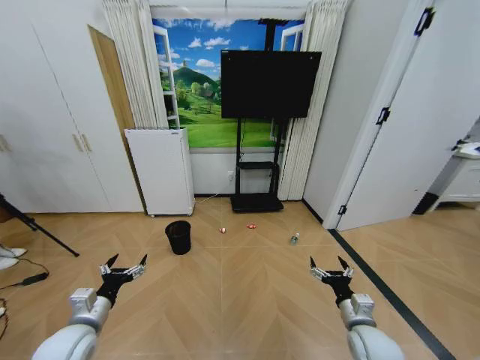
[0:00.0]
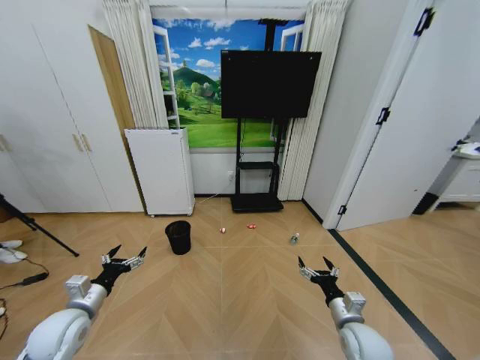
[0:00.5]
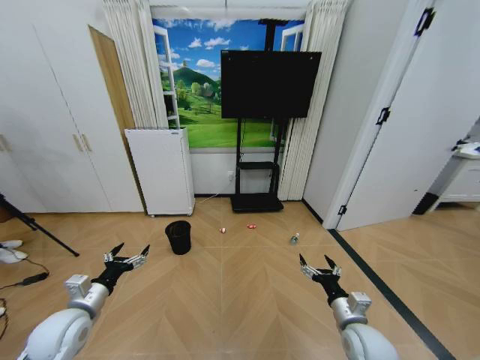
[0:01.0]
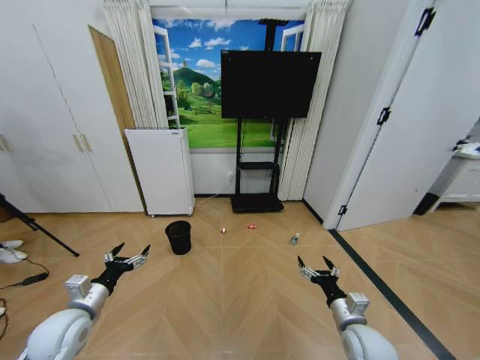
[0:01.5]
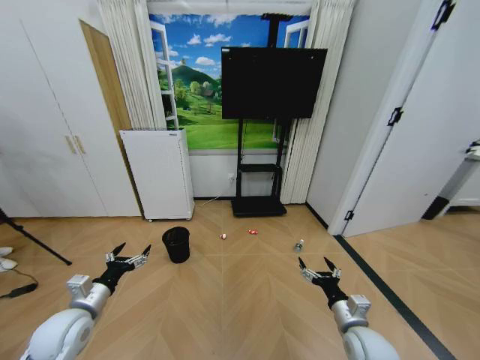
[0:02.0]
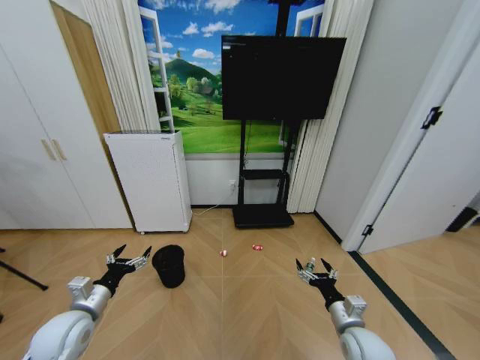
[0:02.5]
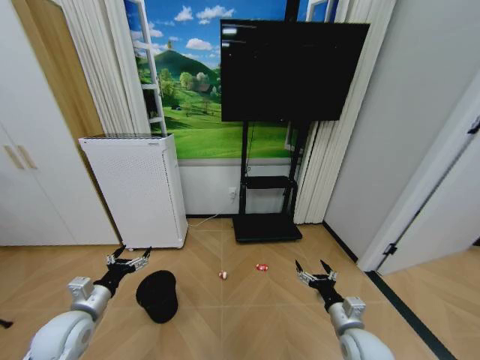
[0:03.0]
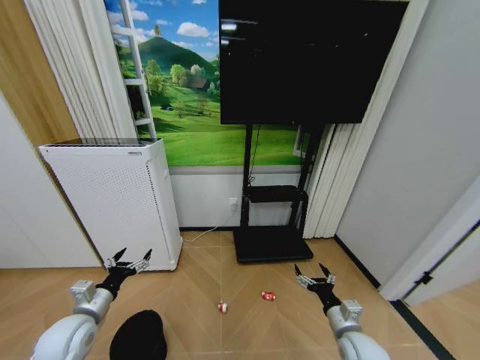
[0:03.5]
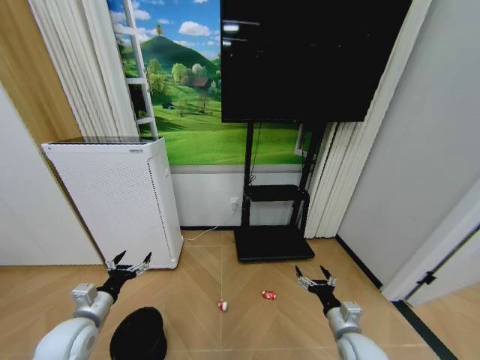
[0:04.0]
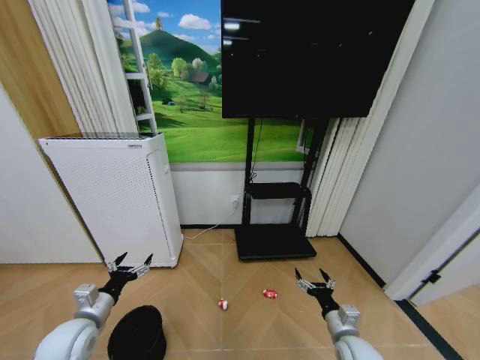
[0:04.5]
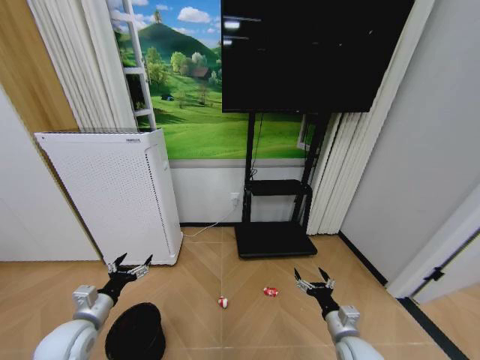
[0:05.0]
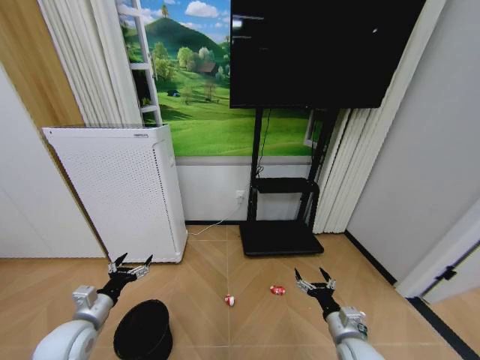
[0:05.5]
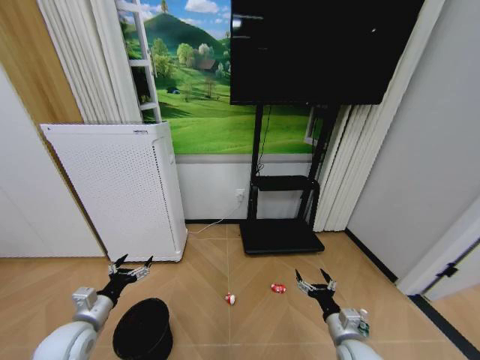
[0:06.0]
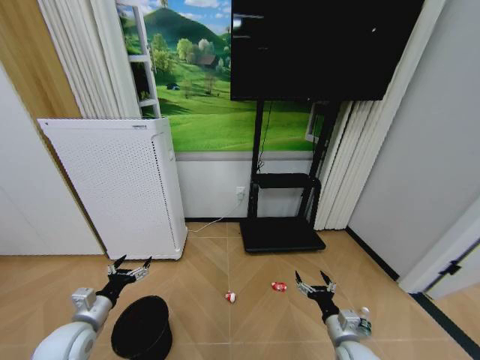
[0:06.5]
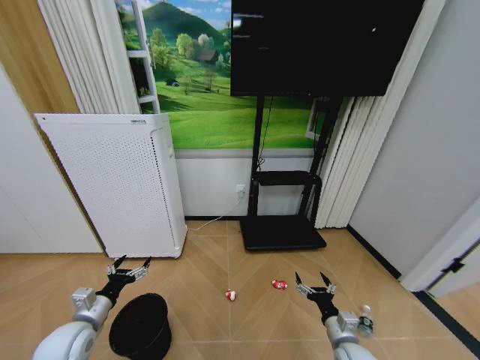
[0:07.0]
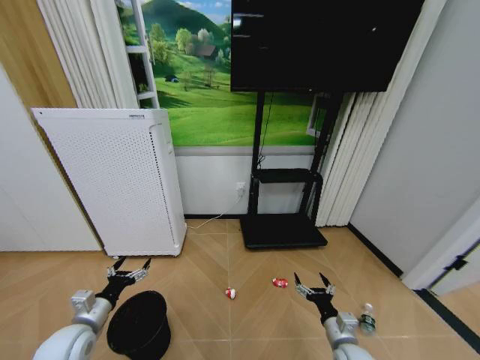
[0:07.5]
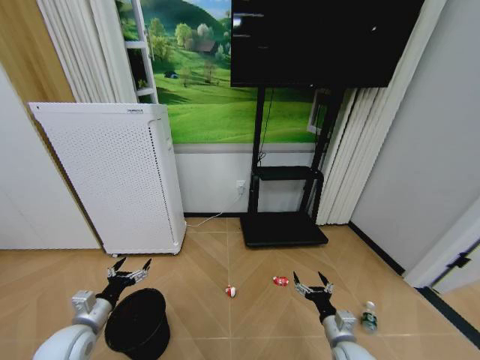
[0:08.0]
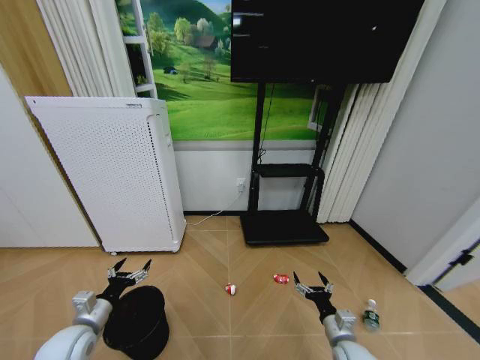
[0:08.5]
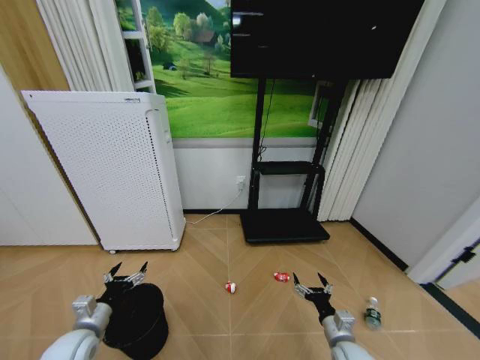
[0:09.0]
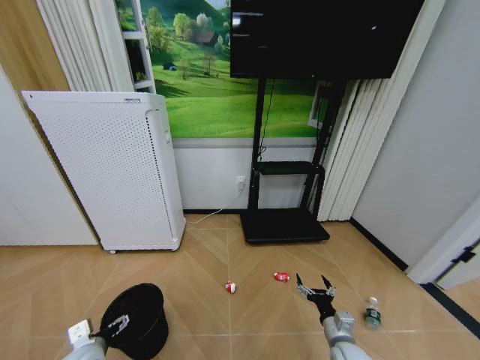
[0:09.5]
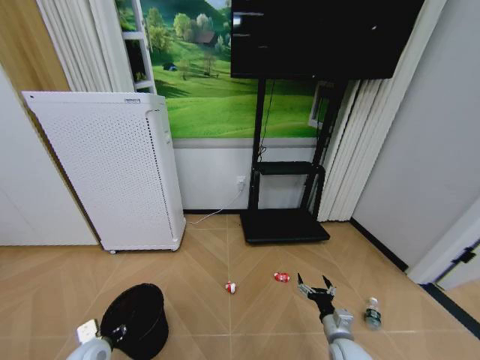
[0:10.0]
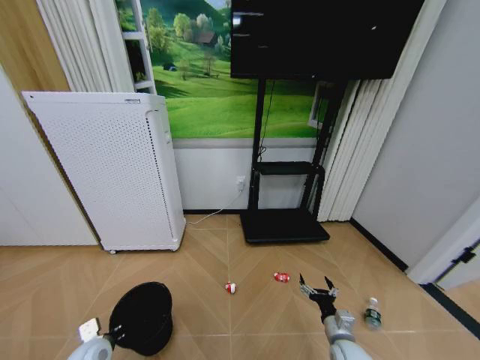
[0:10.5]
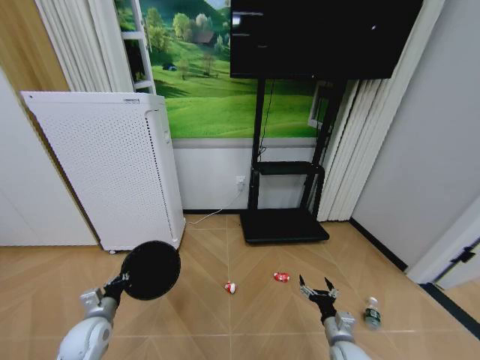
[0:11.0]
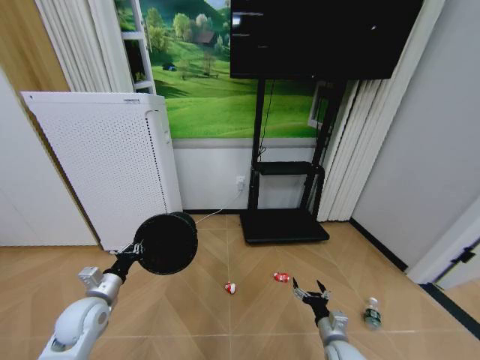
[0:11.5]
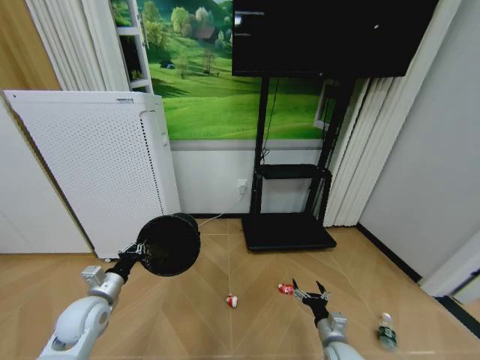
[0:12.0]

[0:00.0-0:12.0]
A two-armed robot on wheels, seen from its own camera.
Task of the whole recording: Pick up the trash bin and place the garbage on the floor into it.
6.0 to 8.0 s: The grippers make only small movements.
8.0 to 10.0 s: The left gripper travels downward by approximately 5 cm, and closes up.
10.0 to 12.0 s: The left gripper goes roughly 10 cm upward and forward, and closes its fingers.

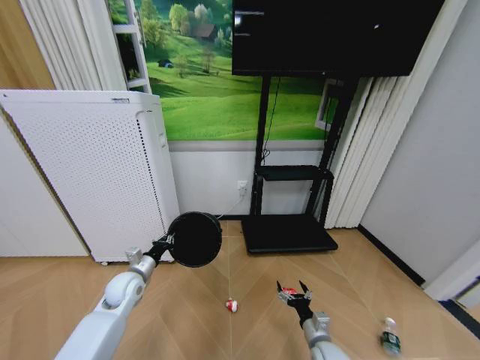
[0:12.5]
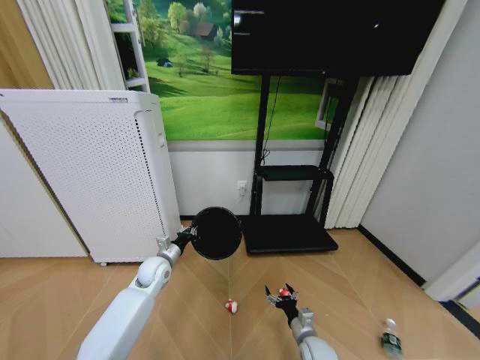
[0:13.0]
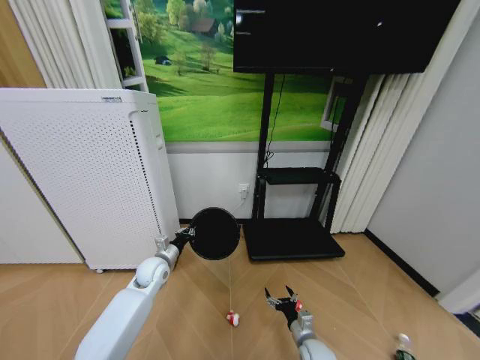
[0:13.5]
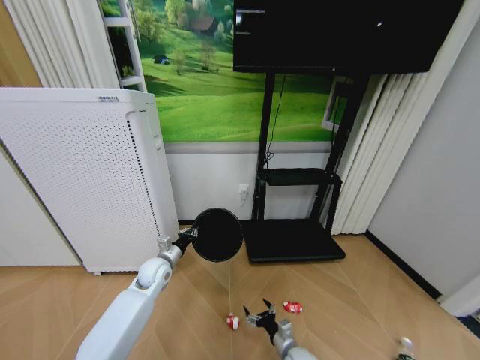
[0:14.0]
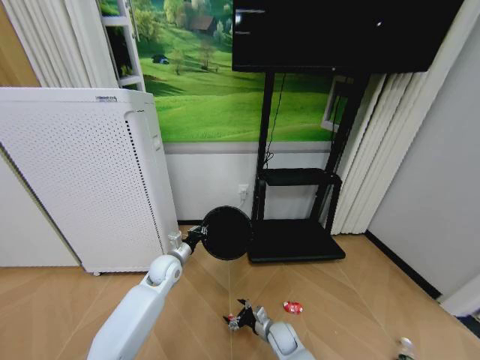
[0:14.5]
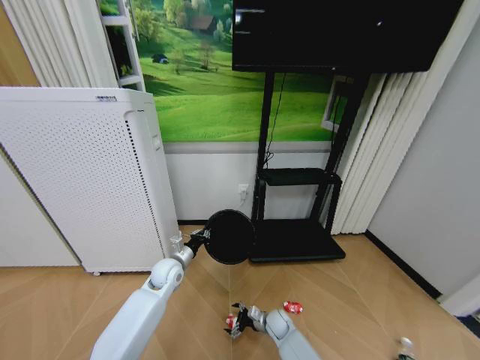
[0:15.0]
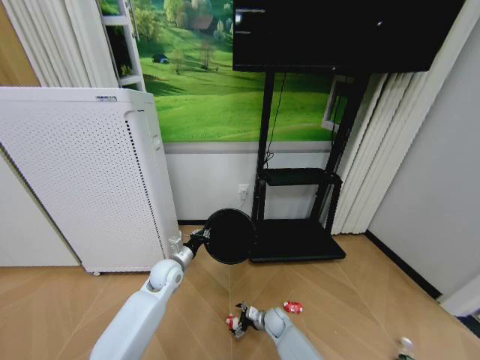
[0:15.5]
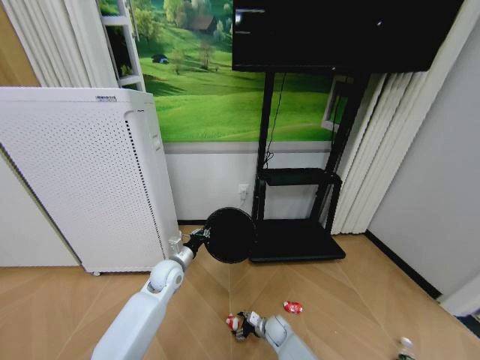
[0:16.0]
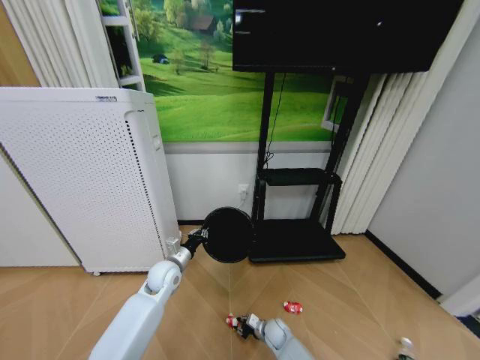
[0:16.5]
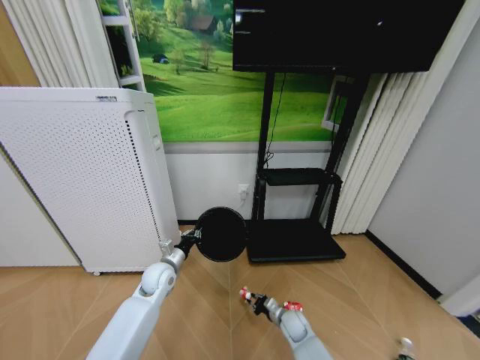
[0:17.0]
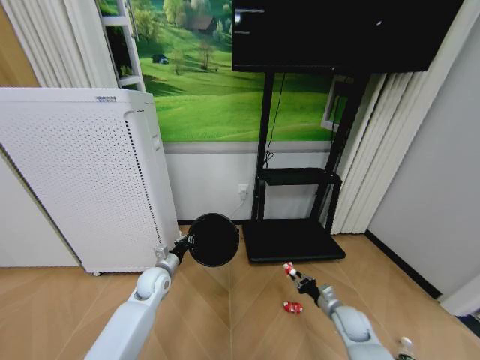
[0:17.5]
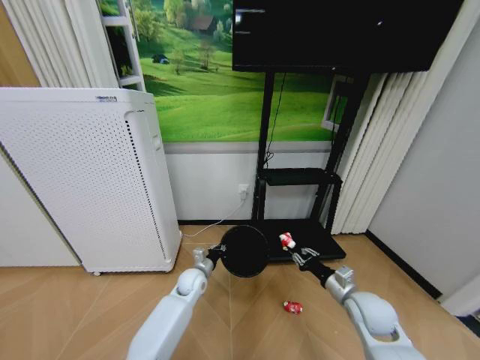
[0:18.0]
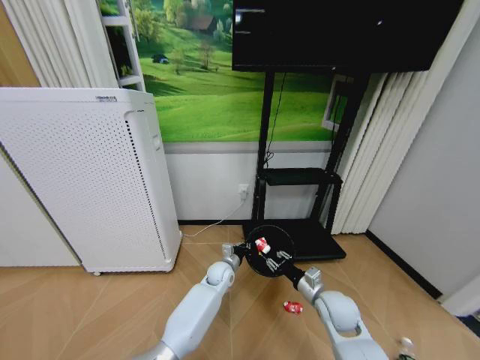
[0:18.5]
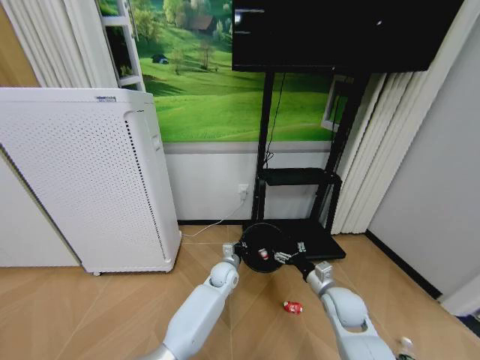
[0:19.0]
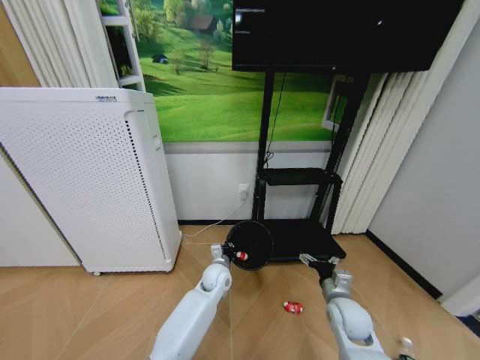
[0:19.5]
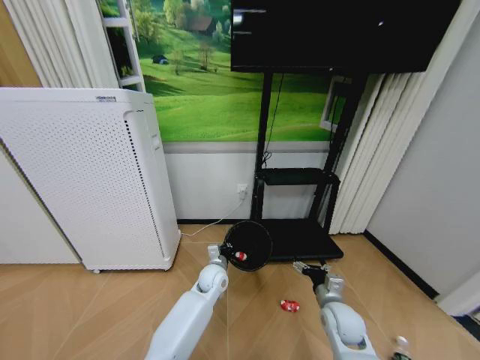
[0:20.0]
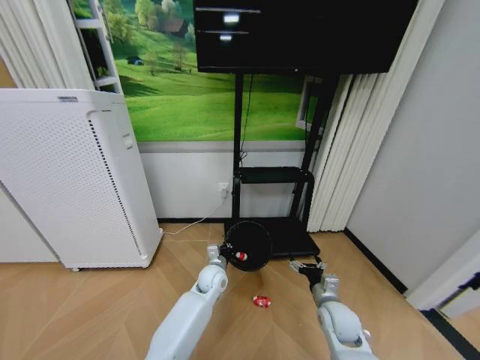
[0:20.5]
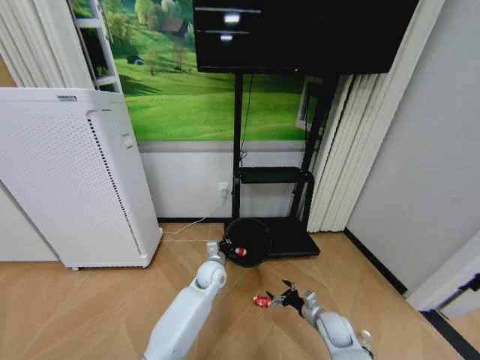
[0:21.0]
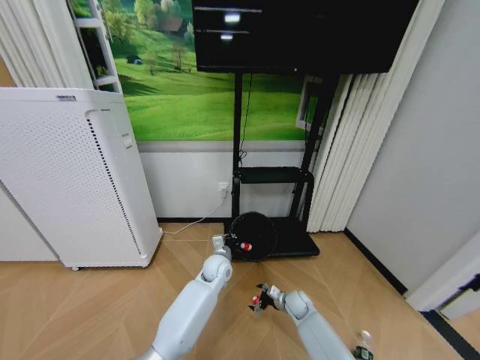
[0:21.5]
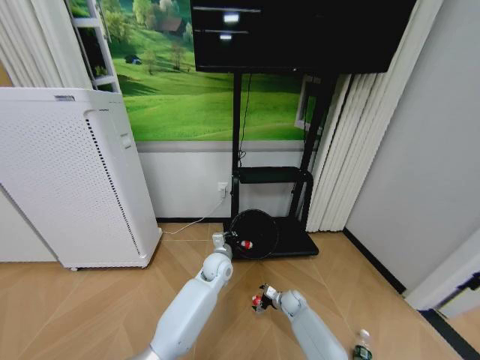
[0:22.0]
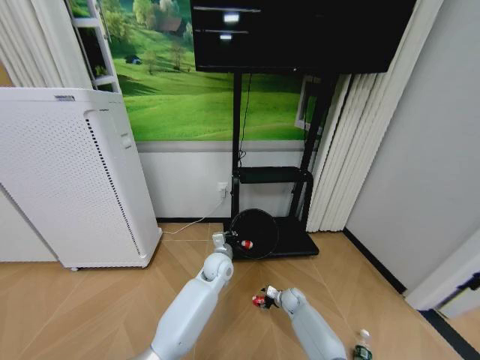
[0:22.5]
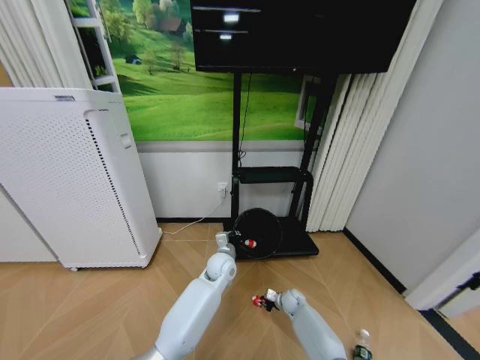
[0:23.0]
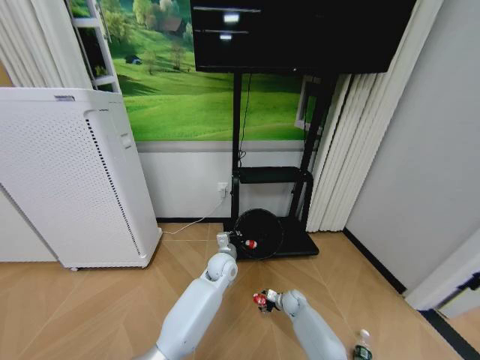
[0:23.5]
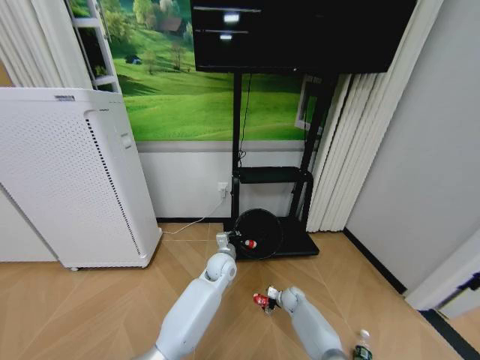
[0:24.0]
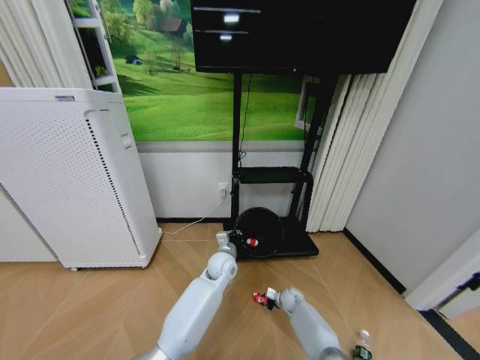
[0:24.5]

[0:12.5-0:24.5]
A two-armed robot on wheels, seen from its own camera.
Task of the whole recording: Pick up the trash bin and place the garbage on the floor into it.
12.5 to 14.5 s: The right gripper moves to the left, downward and forward, some 15 cm. The left gripper shifts roughly 10 cm to the right and forward.
14.5 to 16.5 s: The right gripper heads downward, covering roughly 5 cm, and closes.
16.5 to 18.5 s: The right gripper moves upward and to the right, some 30 cm. Meanwhile the left gripper shifts about 20 cm to the right and downward.
18.5 to 20.5 s: The left gripper moves some 5 cm. Meanwhile the right gripper opens its fingers.
20.5 to 22.5 s: The right gripper heads downward and forward, covering about 25 cm.
22.5 to 24.5 s: The right gripper closes up.

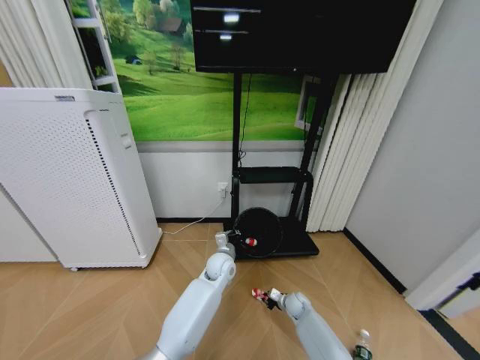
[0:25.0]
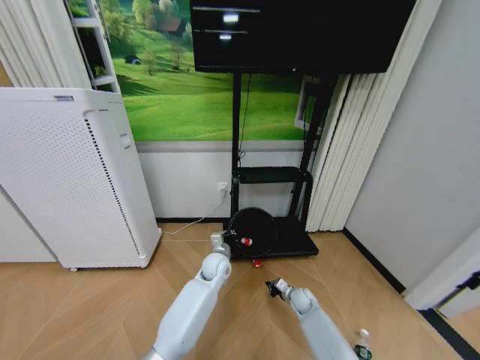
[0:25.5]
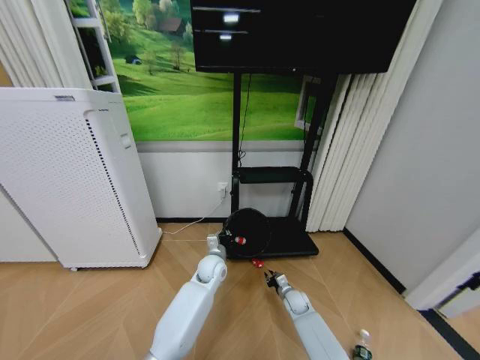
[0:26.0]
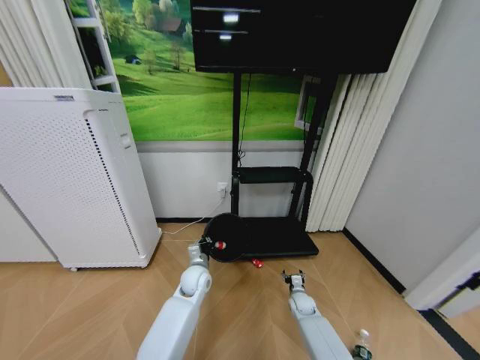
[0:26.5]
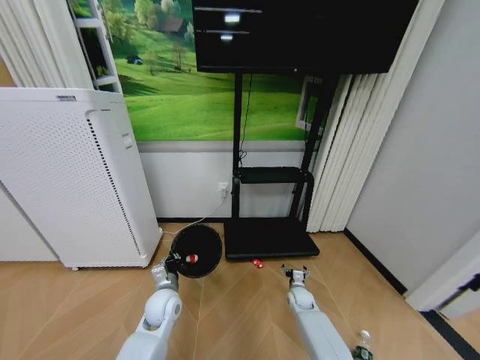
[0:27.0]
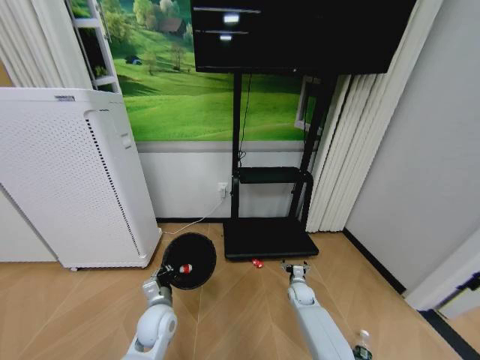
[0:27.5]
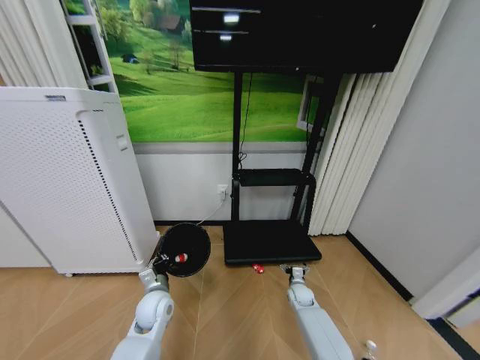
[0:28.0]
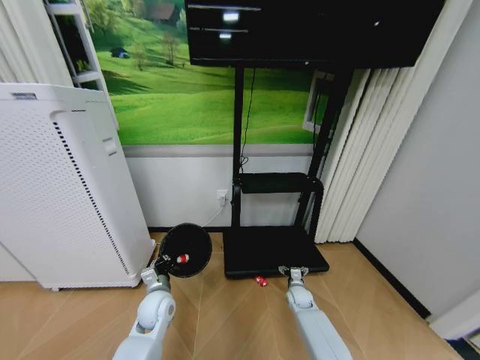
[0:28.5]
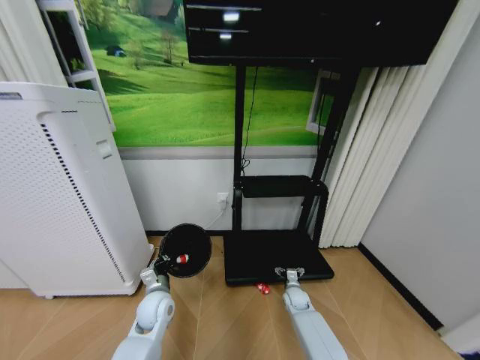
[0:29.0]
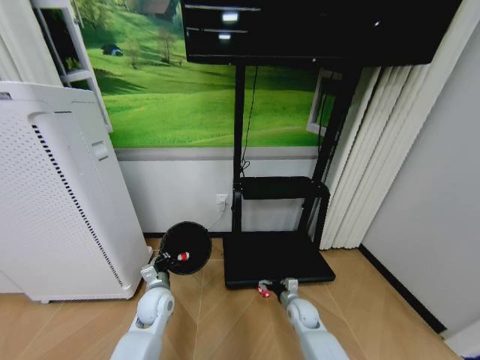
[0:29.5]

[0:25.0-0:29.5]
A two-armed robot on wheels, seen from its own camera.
Task of the whole recording: Pick up the trash bin and place the garbage on the floor into it.
25.0 to 27.0 s: The left gripper shifts approximately 20 cm to the left and backward. The right gripper opens its fingers.
27.0 to 29.5 s: The right gripper travels backward by approximately 5 cm.
